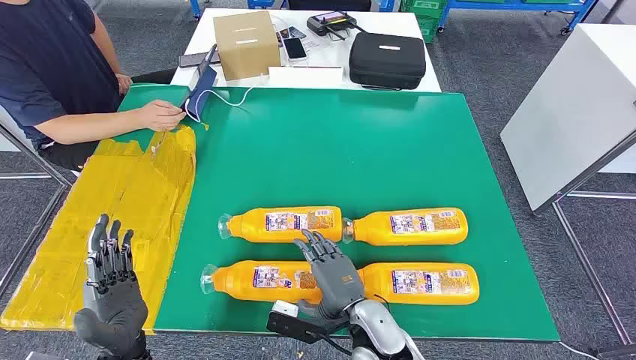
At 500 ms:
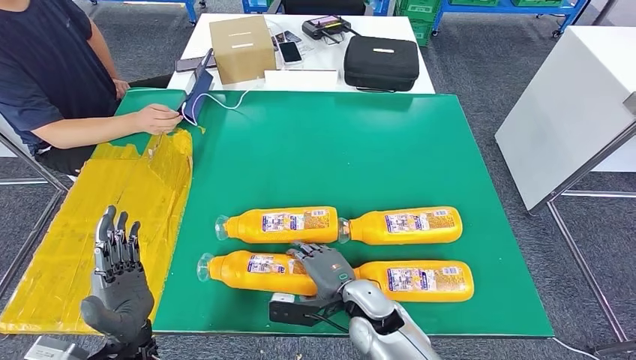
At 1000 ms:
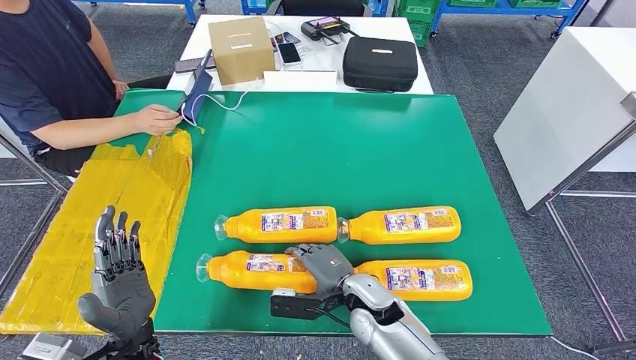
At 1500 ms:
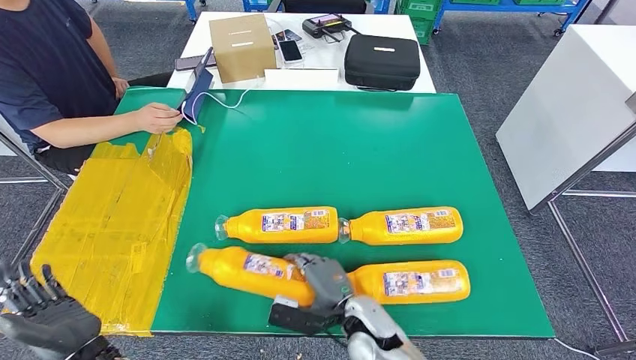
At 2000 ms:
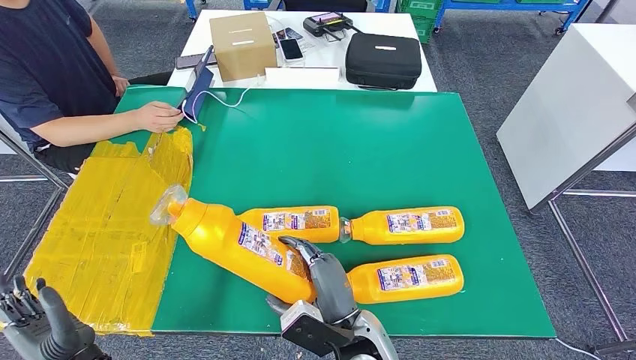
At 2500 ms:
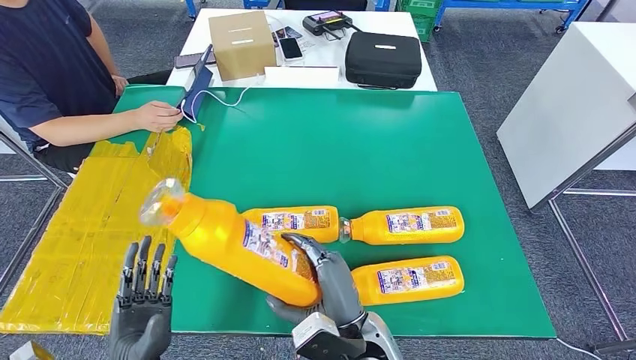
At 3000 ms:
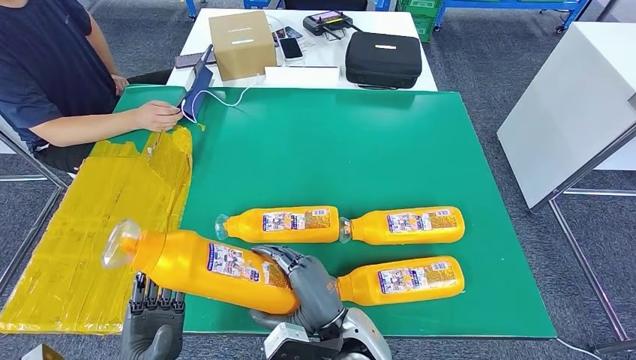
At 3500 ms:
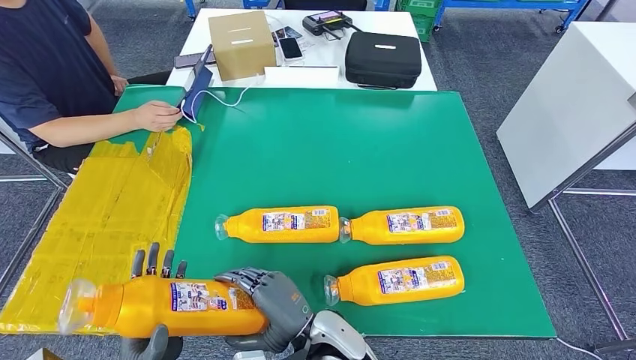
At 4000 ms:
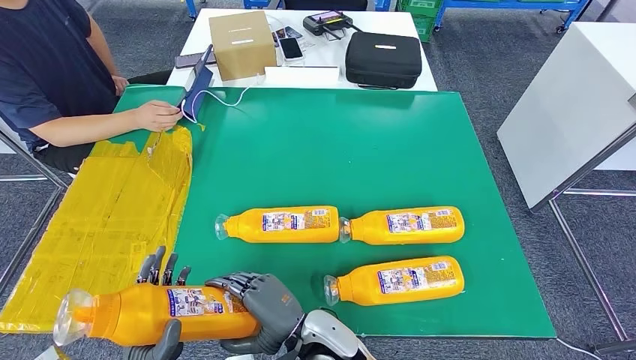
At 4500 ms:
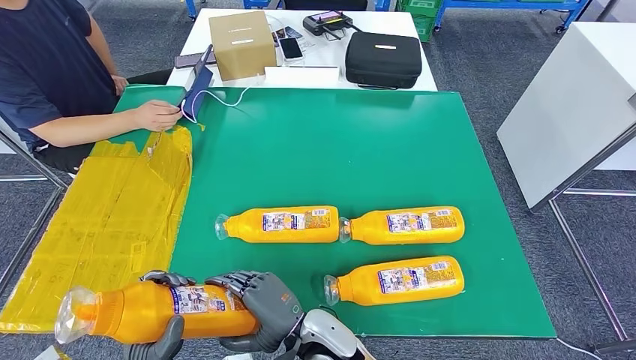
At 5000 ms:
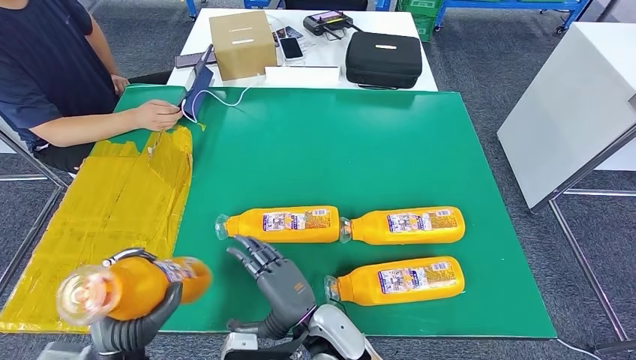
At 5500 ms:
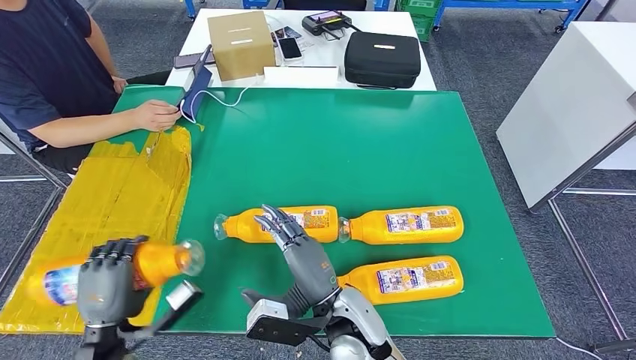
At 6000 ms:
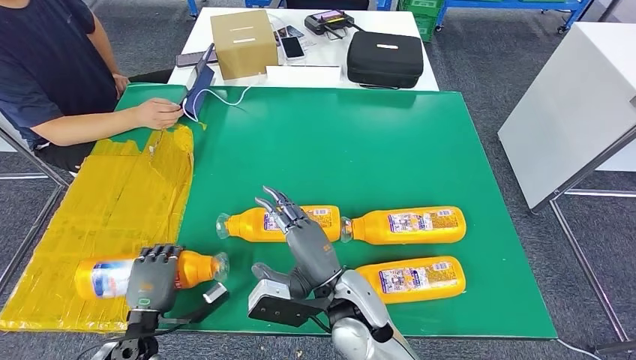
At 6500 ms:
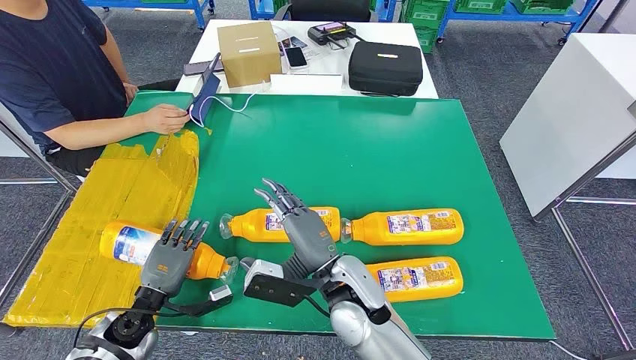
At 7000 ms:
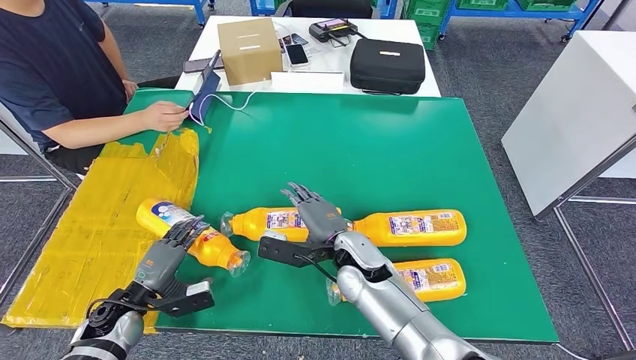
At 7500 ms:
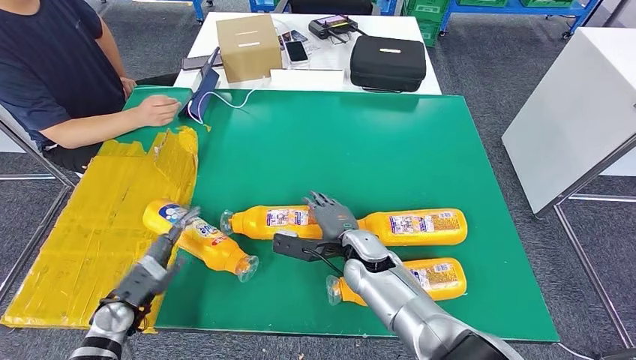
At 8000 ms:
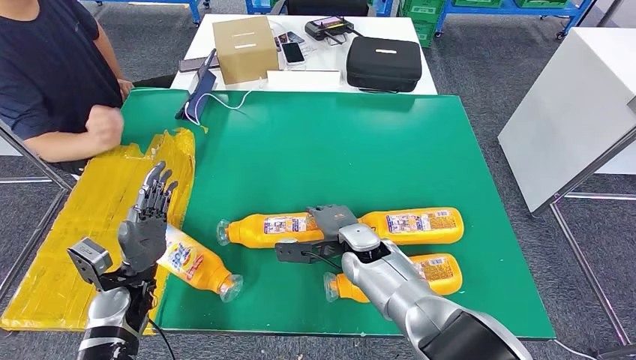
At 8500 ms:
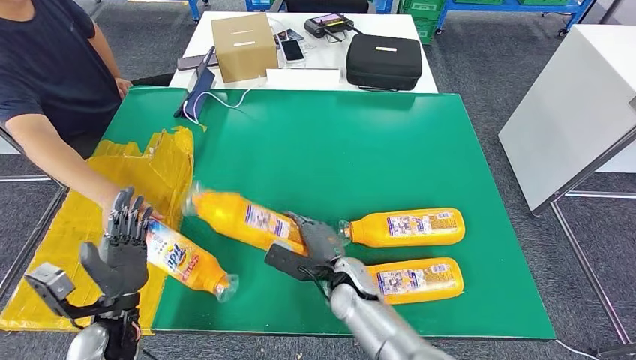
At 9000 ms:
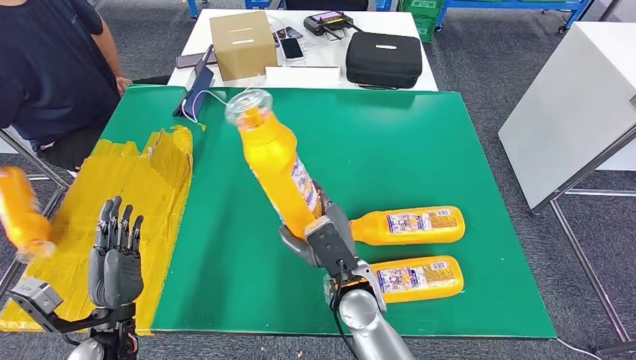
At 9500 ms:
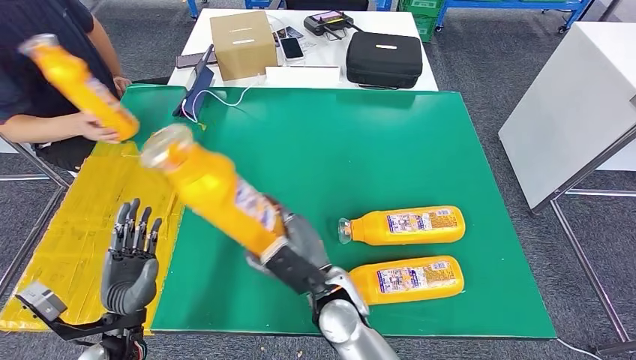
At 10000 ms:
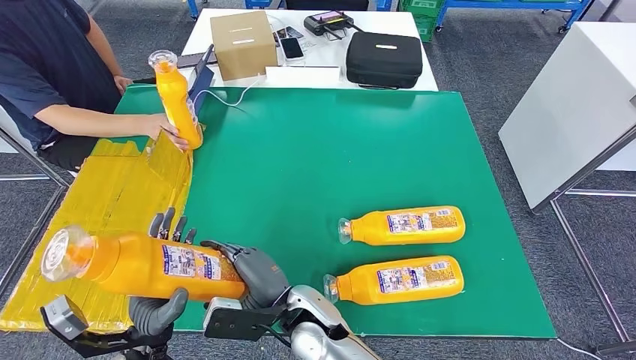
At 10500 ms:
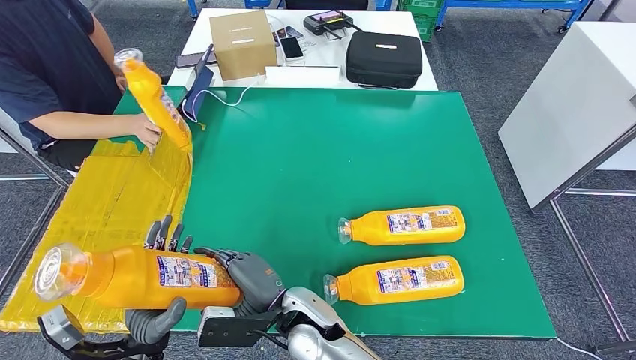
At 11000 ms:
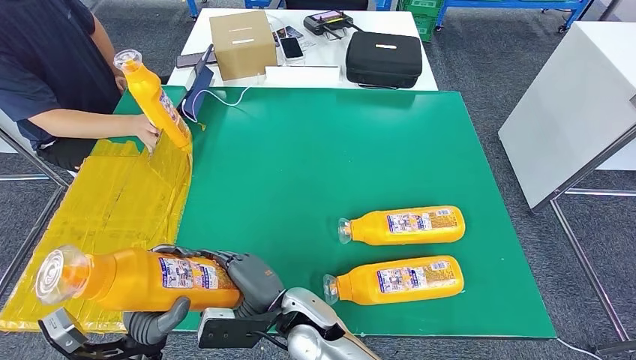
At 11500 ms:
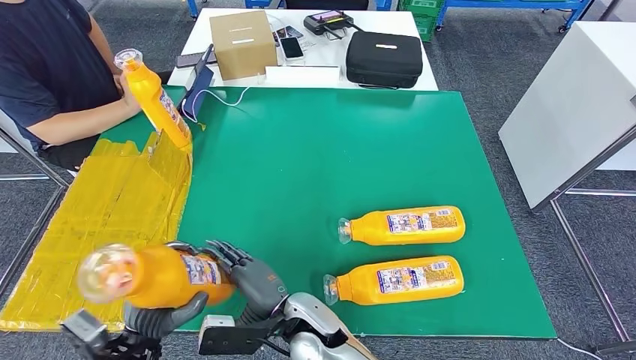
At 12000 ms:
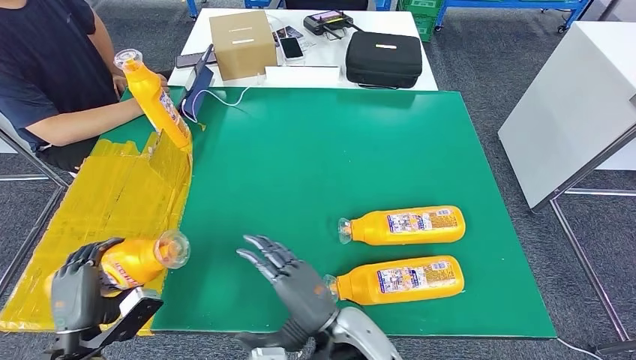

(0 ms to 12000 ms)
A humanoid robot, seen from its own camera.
Step, 0 ms - 2000 ms: Take the bottle from the table.
Step, 3500 ms - 7000 ms: Flip the bottle to face forward.
Step, 8000 ms - 10000 ms: Pick up the bottle from the table.
2000 ms - 4000 ms: The right hand travels to the left by some 5 cm. Meanwhile the left hand moves to the right, some 5 cm.
4000 ms - 6000 ms: The left hand travels forward, to the left and downward by some 15 cm, while the right hand goes some 5 cm upward.
10000 ms - 12000 ms: The right hand moves to the right, about 5 cm. The left hand shifts about 10 cm to the left.

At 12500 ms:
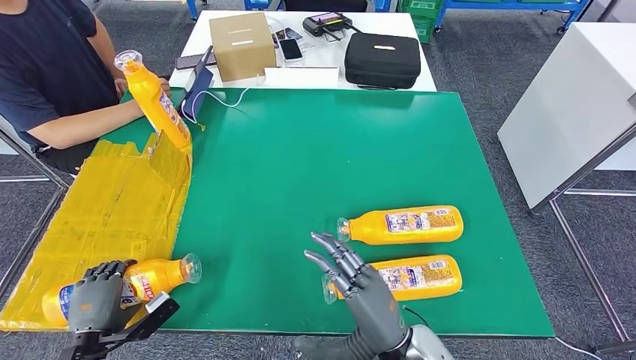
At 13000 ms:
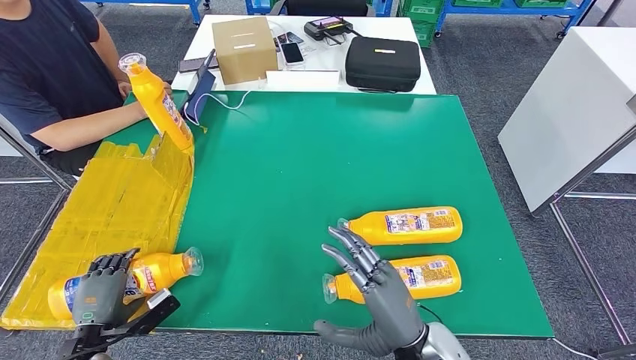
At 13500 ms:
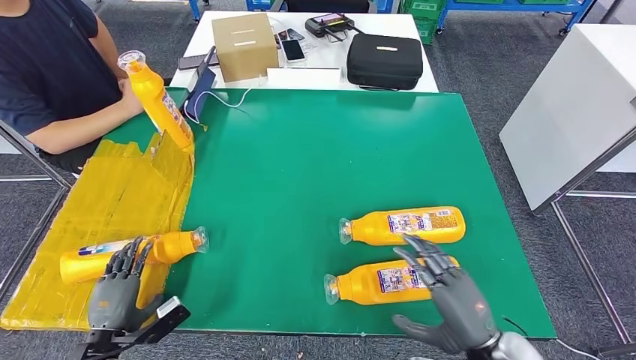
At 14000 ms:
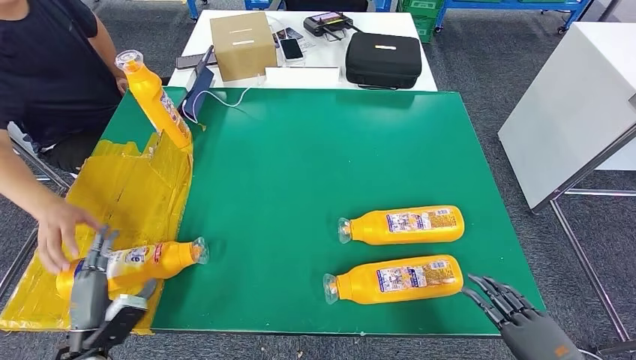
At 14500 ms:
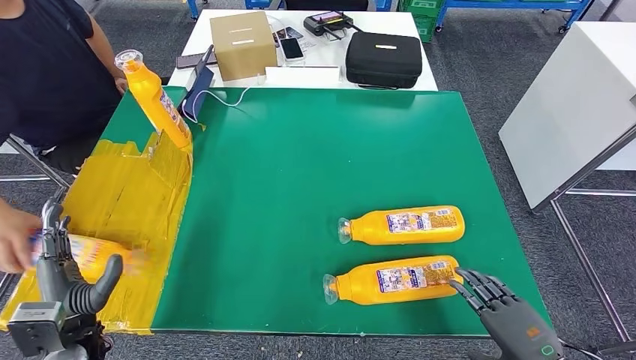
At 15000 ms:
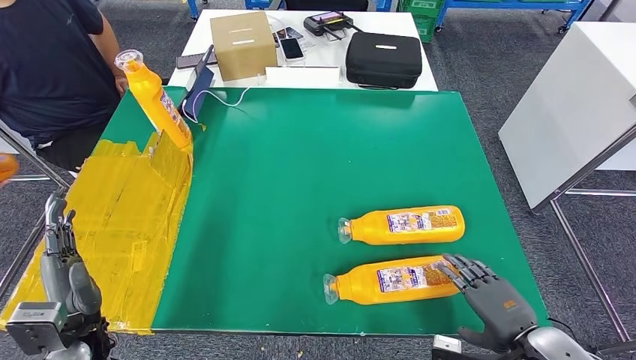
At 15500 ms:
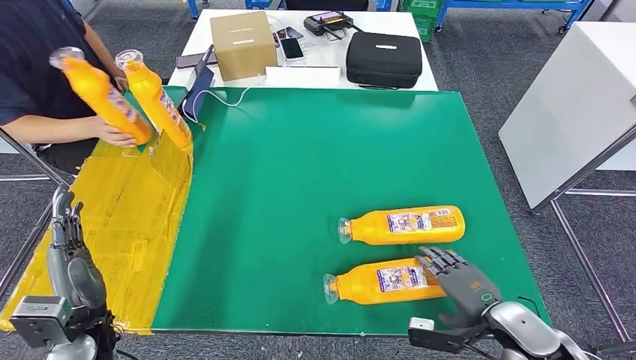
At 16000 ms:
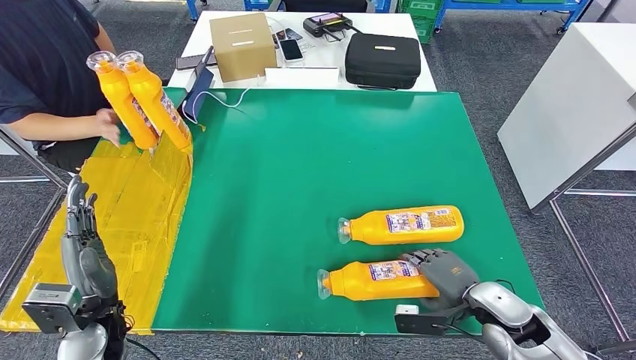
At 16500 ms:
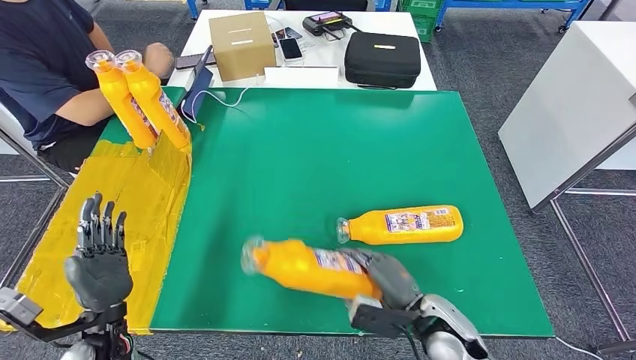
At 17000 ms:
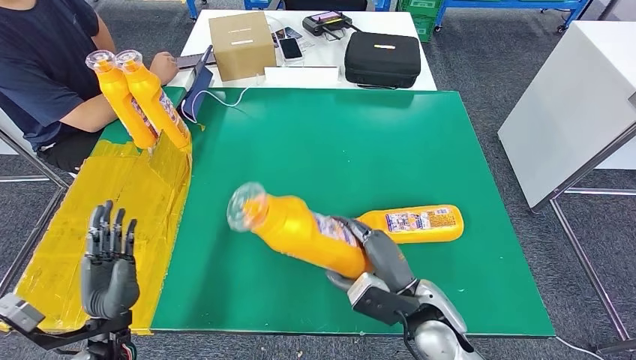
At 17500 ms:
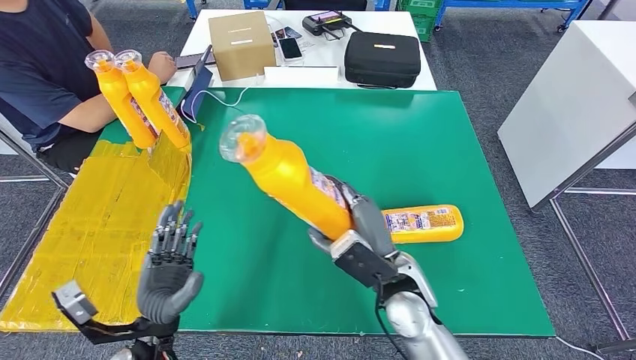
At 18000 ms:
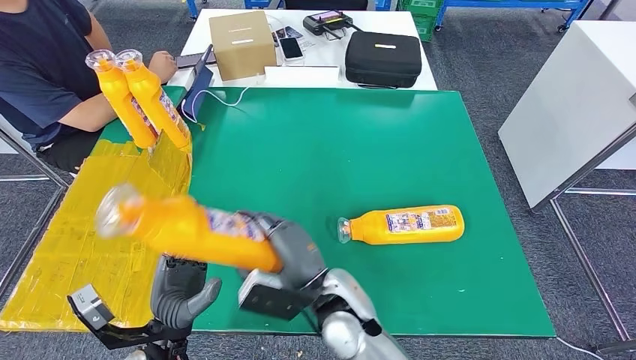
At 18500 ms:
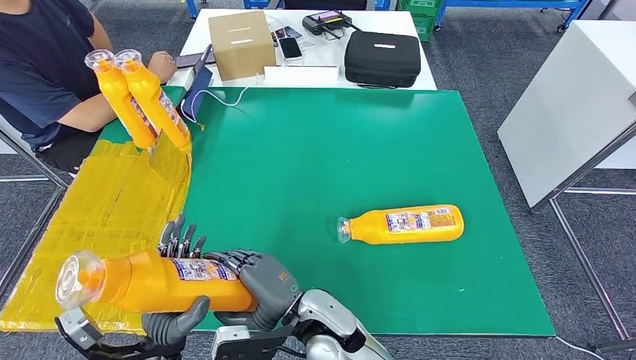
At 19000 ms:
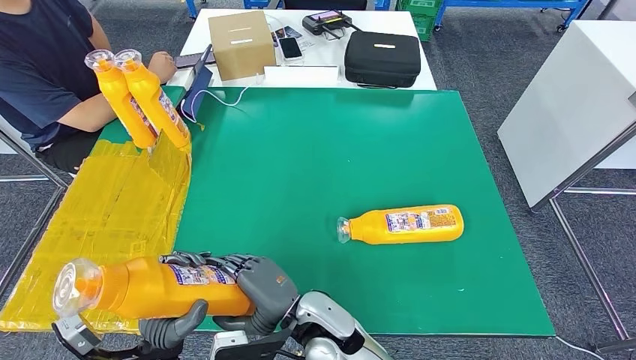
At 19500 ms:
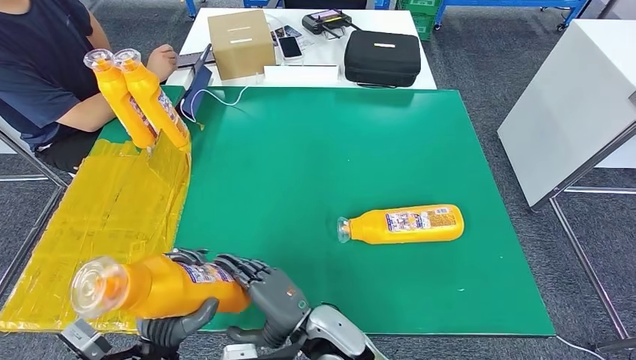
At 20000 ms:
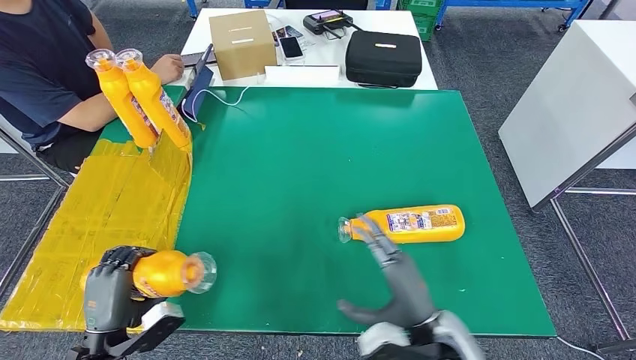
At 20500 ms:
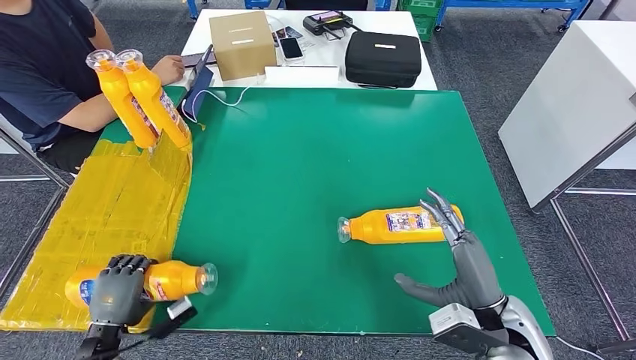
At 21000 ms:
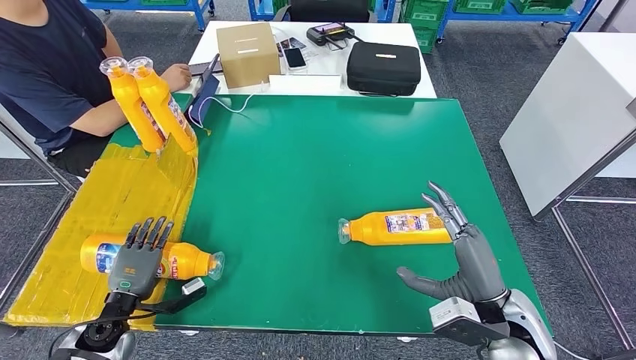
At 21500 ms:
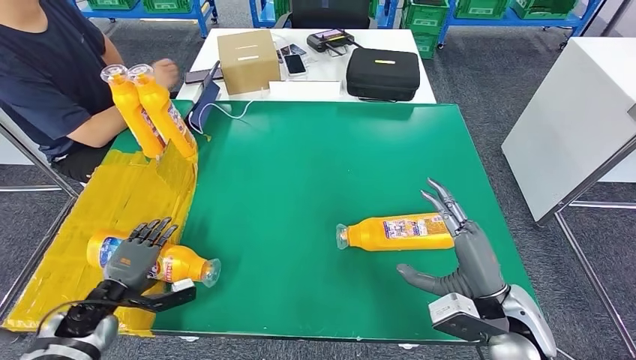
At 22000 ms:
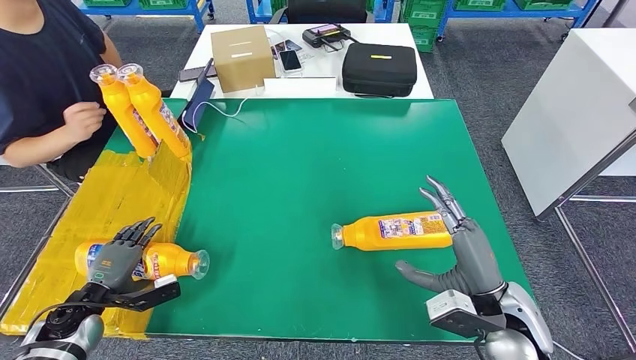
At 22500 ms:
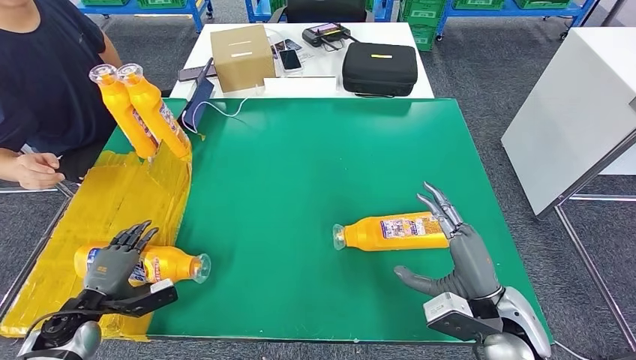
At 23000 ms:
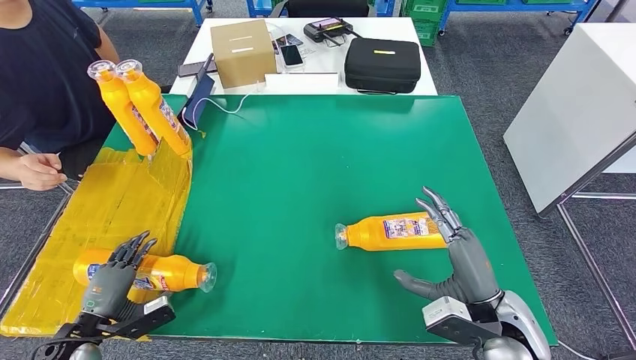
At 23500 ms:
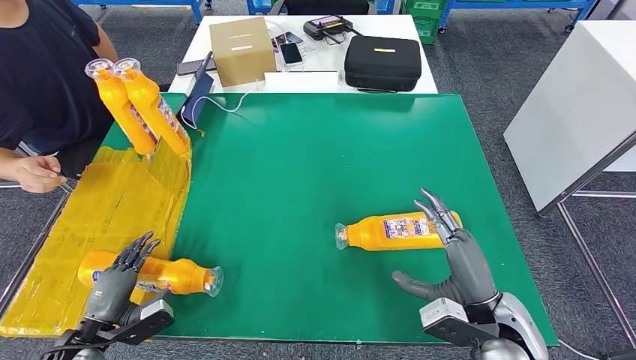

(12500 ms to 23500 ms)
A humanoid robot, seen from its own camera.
Step, 15500 ms - 18000 ms: Pick up the bottle from the table.
12500 ms - 14500 ms: The left hand travels upward by about 10 cm. The right hand goes roughly 20 cm to the right.
18000 ms - 20000 ms: The left hand moves to the left, some 10 cm, while the right hand heads to the right and backward, covering about 15 cm.
